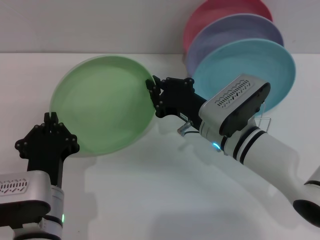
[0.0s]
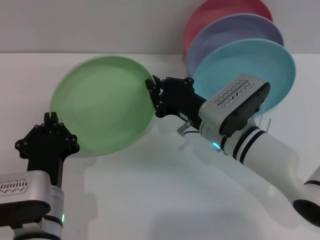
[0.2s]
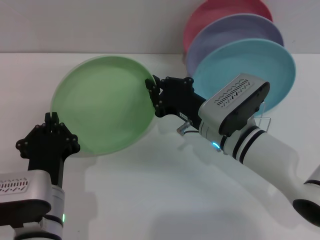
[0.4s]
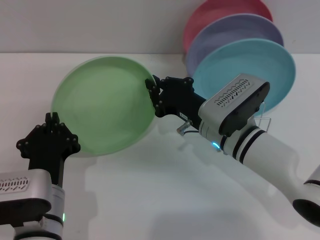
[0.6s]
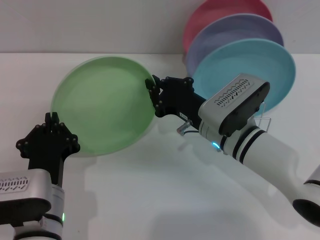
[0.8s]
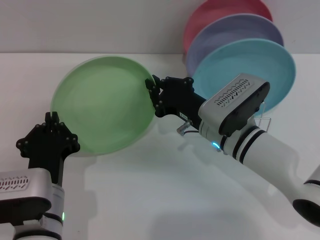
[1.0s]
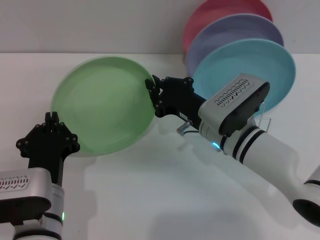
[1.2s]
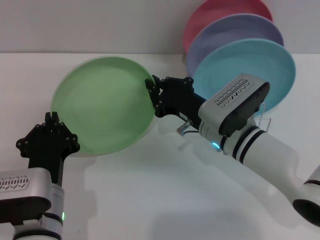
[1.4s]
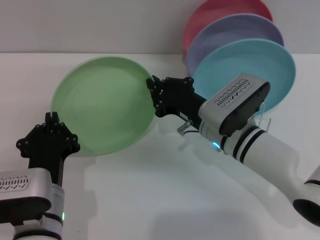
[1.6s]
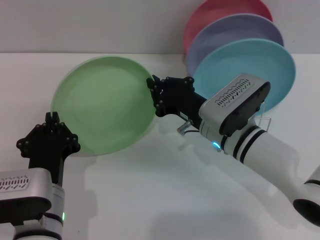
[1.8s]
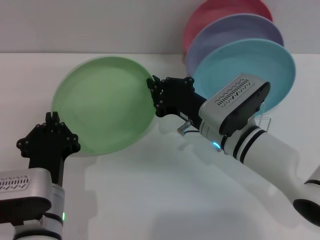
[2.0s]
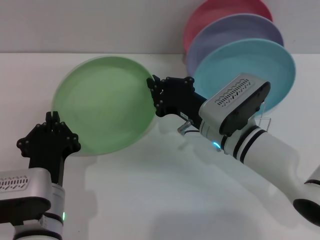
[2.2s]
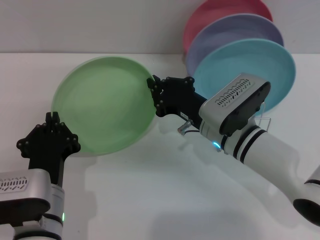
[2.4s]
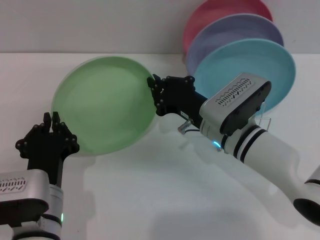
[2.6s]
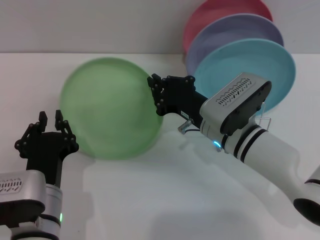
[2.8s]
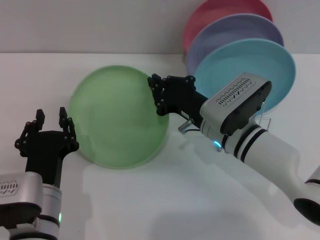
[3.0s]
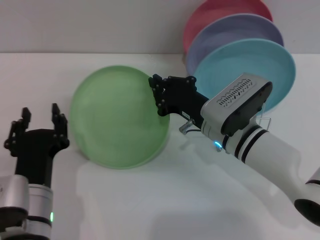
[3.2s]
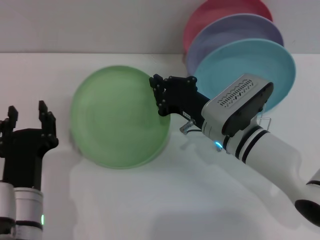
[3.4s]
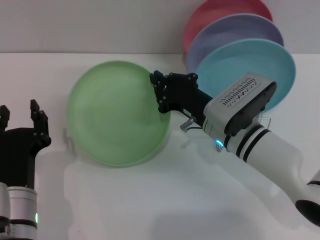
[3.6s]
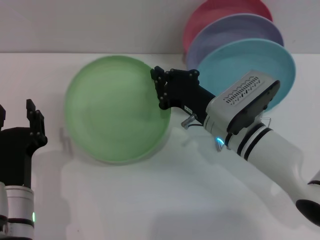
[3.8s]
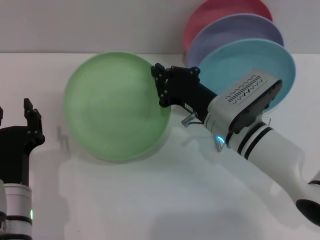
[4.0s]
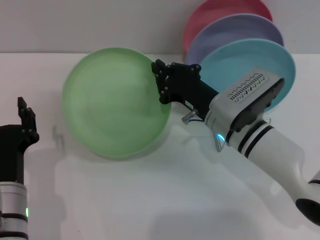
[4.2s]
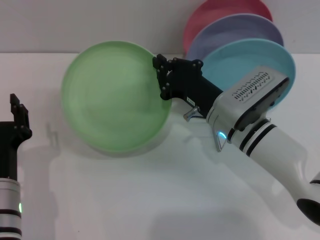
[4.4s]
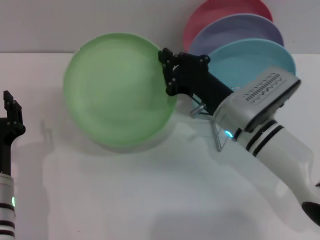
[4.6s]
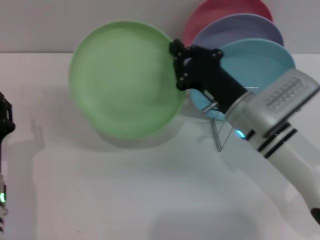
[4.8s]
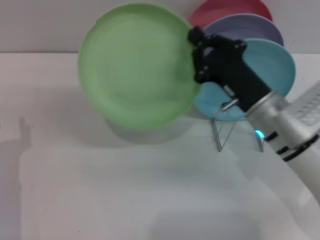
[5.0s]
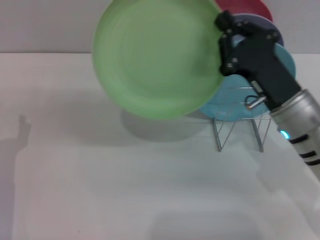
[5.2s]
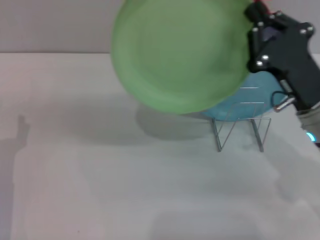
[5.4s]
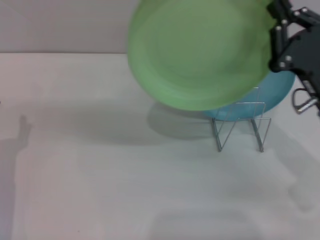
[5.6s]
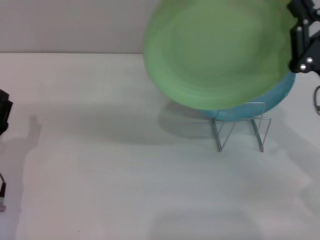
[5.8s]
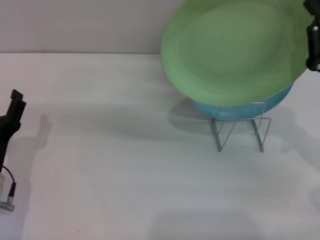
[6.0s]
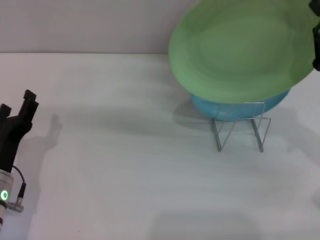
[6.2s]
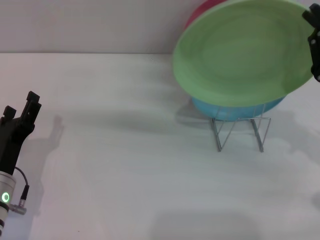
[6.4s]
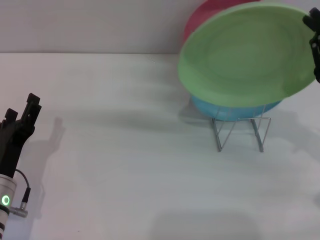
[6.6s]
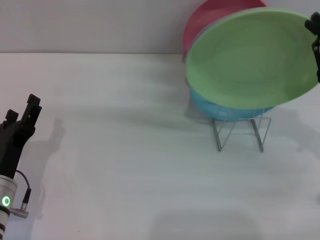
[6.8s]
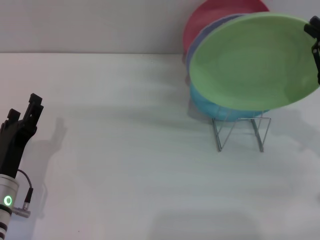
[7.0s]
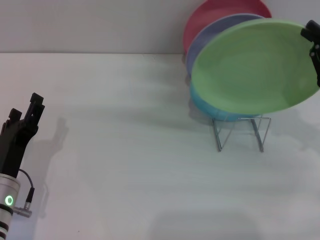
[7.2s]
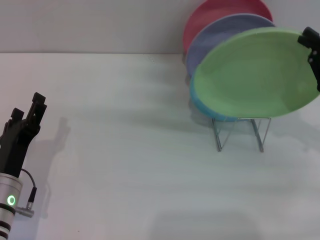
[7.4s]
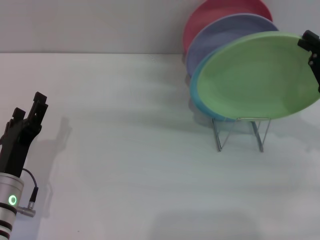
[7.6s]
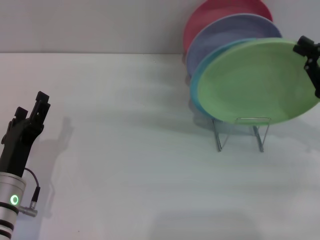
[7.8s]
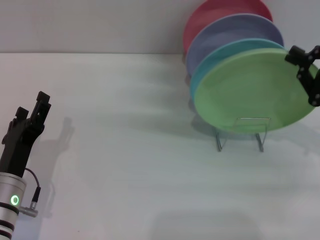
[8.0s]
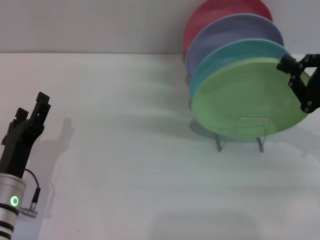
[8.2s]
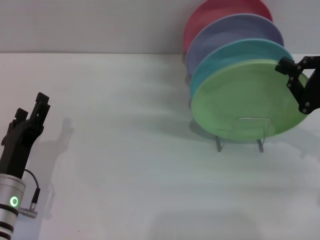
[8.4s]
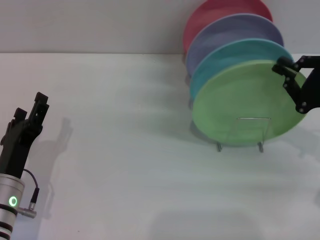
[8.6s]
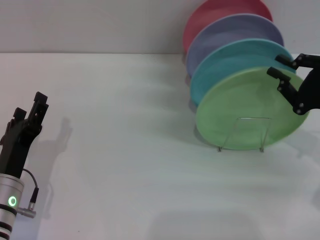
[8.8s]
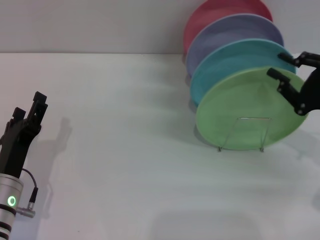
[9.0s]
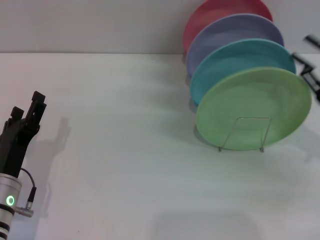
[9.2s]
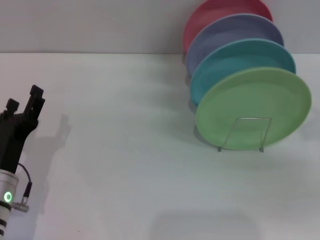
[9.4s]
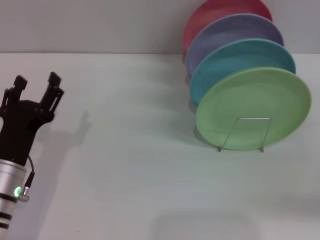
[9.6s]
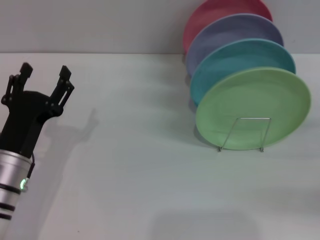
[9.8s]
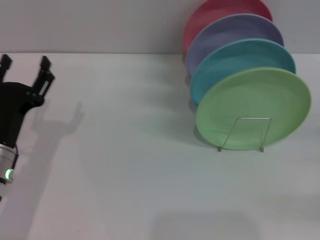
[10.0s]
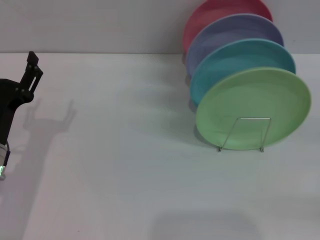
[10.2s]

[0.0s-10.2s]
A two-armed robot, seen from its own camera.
Task of the whole recording: Grip the plate with one hand, pass it to the other, then set it on the shelf.
Step, 0.0s to 3.2s: Pass the plate from the left gripper to the right gripper.
Step, 3.6s to 9.0s: Place the plate on the shelf with the right gripper.
0.0s to 3.0s: Both grippers stay put.
3.0s to 4.4s: The left gripper opens.
4.4s to 5.8s: The left gripper goes some 5 cm to the left. Meanwhile the right gripper heads to the right, covering roughly 15 cm.
5.8s to 7.2s: The right gripper goes about 5 cm to the right.
7.2s to 8.8s: The grippers stay close to where they were, moving slightly.
8.8s to 10.2s: The left gripper changes place by roughly 5 cm. The right gripper moves to the right and backward, roughly 10 cm, and opens its fingers.

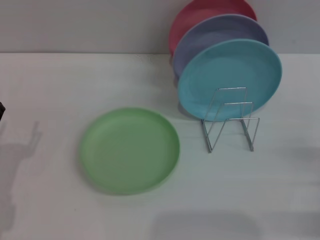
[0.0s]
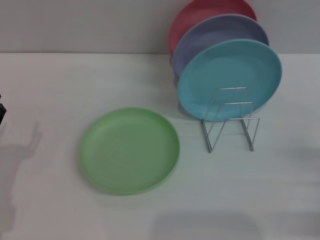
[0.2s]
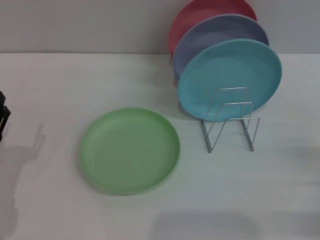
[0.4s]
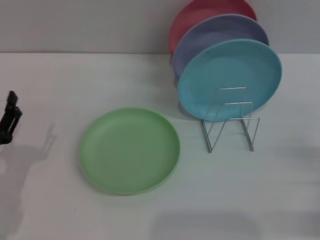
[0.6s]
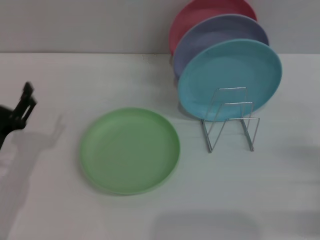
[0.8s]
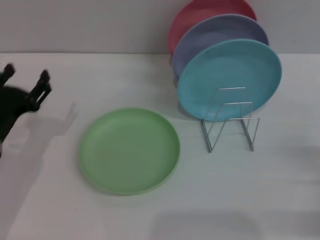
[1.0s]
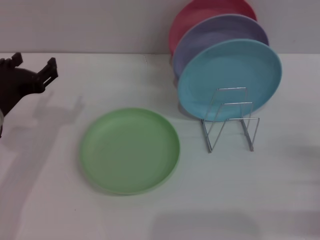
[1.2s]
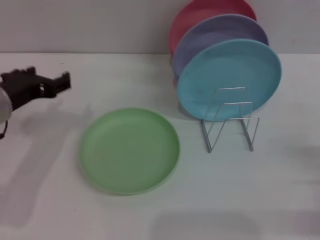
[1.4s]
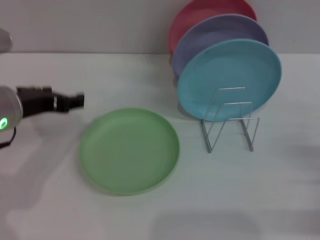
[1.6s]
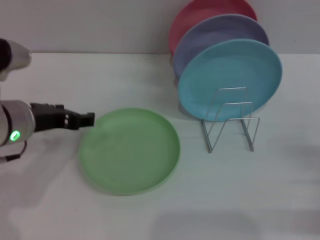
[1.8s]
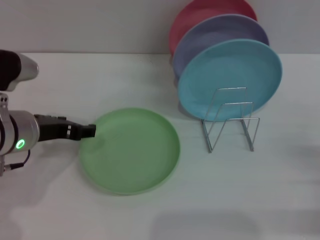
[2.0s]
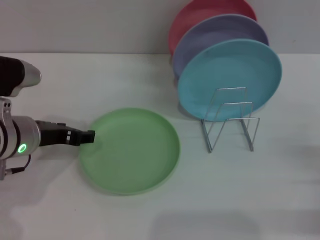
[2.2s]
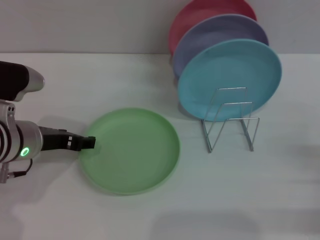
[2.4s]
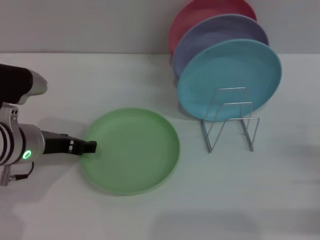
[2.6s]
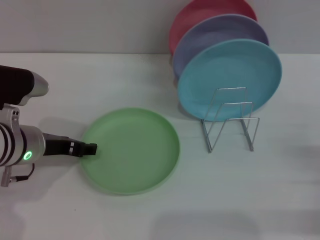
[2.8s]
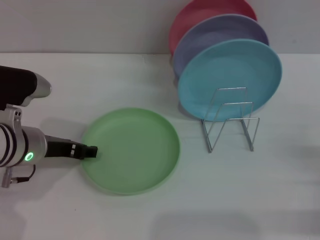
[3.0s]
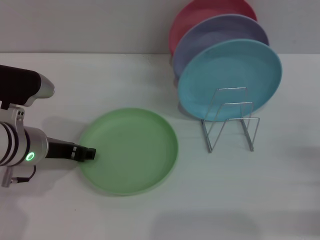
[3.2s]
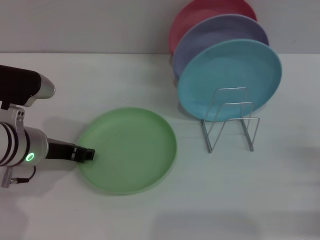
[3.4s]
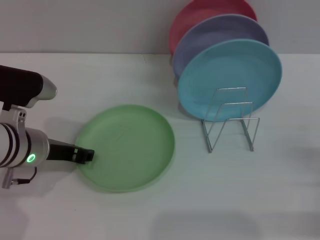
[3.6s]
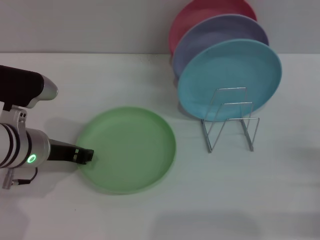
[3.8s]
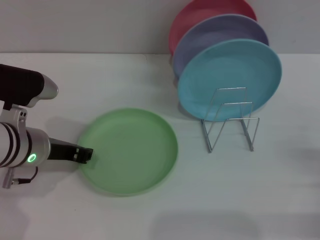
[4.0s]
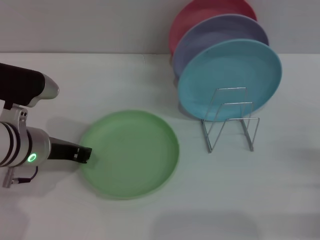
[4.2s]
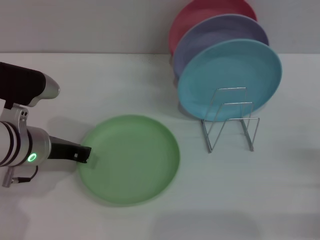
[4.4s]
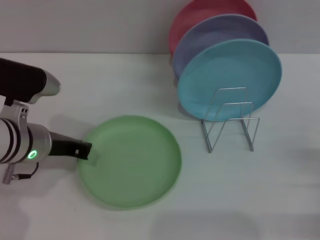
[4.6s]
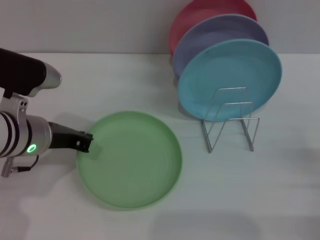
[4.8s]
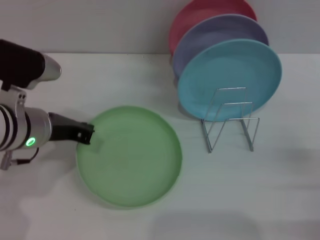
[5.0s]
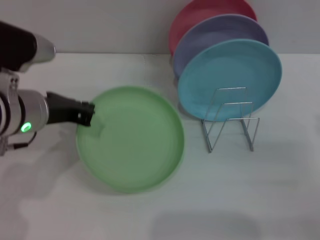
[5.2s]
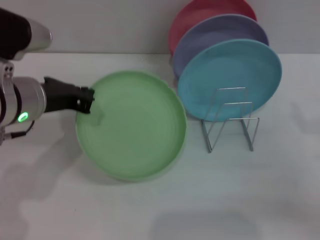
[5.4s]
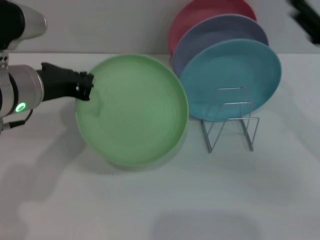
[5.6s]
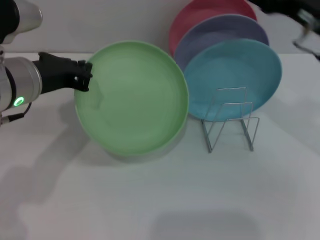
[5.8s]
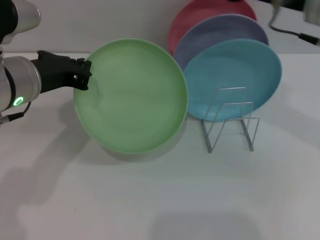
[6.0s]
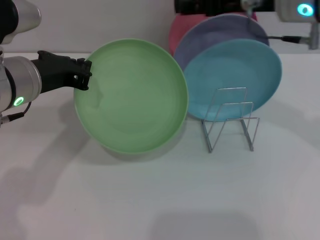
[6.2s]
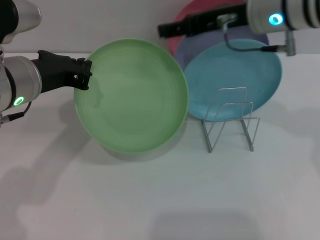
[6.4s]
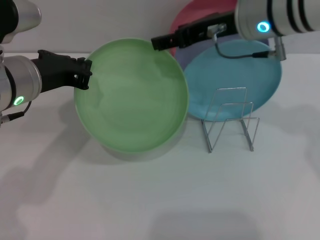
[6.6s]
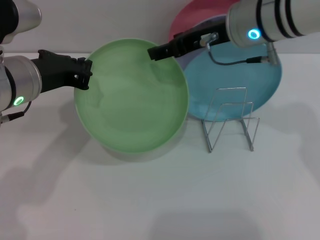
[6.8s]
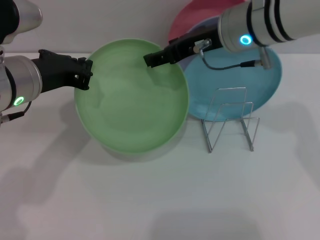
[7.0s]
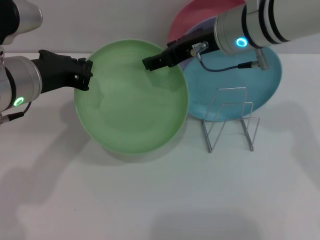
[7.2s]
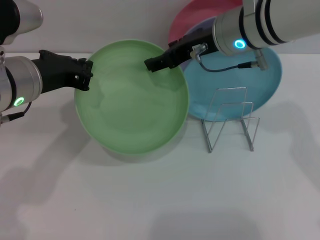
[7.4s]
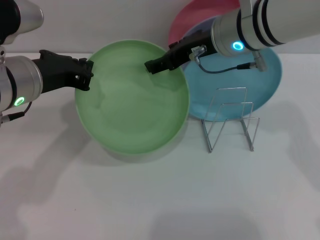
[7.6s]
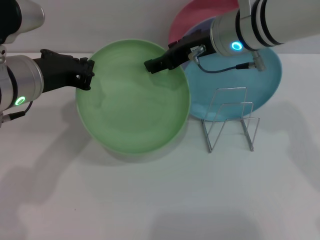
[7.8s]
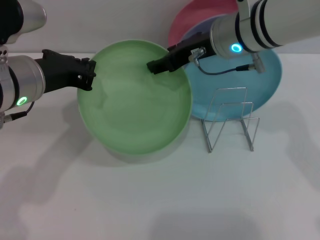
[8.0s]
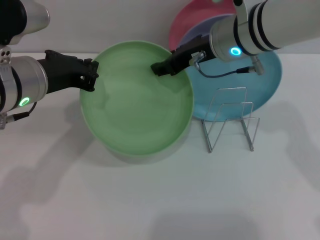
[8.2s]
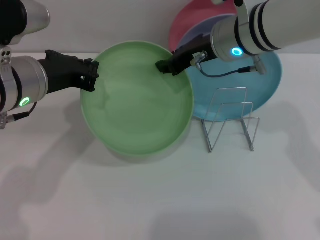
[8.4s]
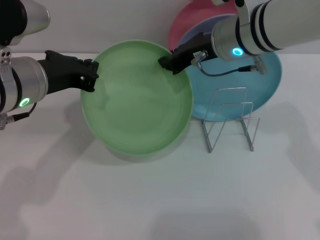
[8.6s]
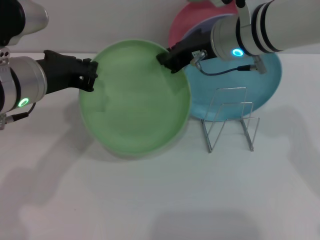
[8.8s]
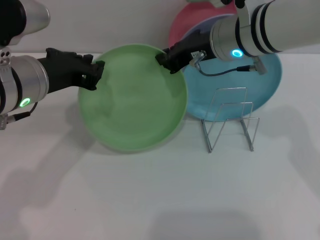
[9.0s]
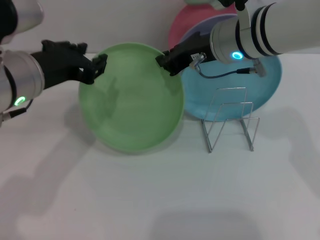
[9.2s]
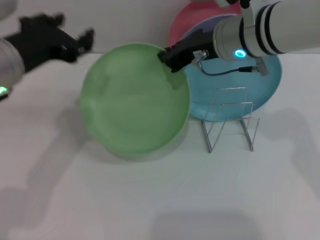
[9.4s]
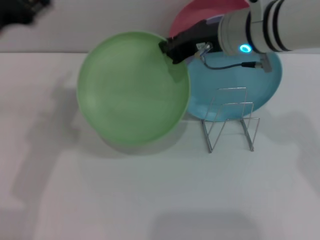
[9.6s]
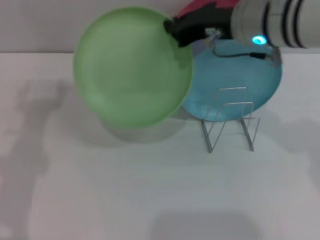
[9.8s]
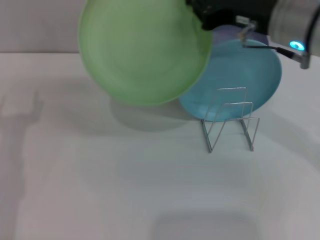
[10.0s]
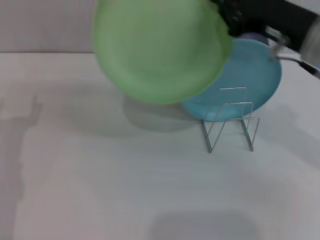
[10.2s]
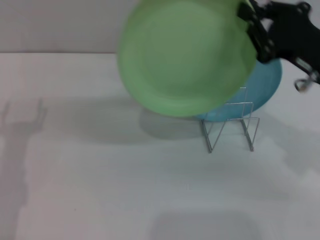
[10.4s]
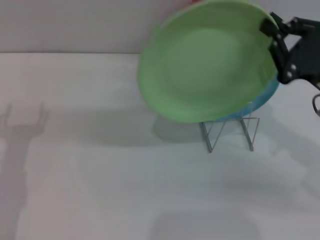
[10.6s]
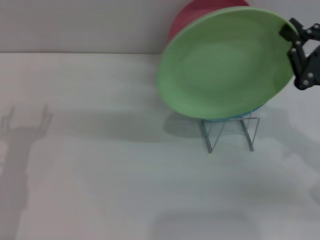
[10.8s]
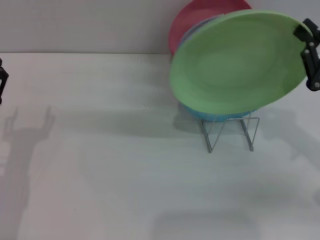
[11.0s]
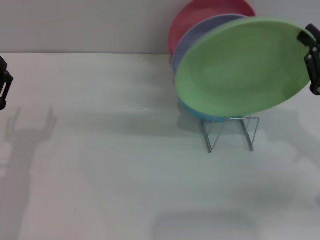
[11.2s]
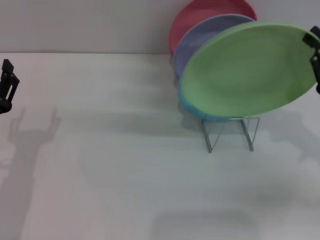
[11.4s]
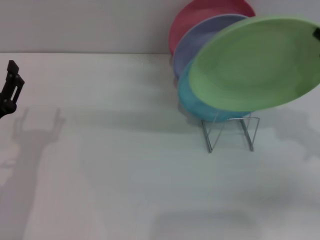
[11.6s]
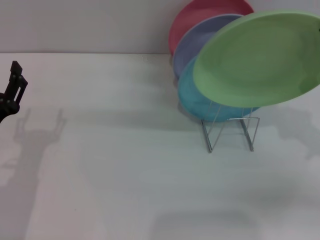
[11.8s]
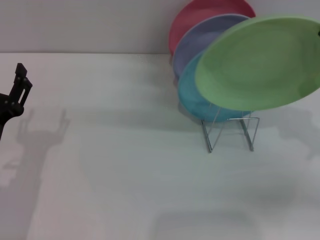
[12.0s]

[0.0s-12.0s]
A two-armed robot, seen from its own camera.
Task of the whole recording: Grip the plate with one hand, pass it to the other, then set it on the shelf.
Step, 0.0s to 5.8s: Pick up the plate with the left gripper.
Step, 6.0s to 9.6s: Pass the plate from the left gripper to the right gripper.
0.0s to 1.6s: The left gripper heads upward, forward and to the right, covering some 20 cm.
1.6s to 3.0s: The left gripper shifts roughly 5 cm downward.
3.0s to 4.4s: The left gripper closes up.
4.4s to 6.0s: The right gripper travels upward, to the left and forward by some 30 cm; the left gripper shifts roughly 10 cm upward.
6.0s to 7.6s: The right gripper shifts approximately 10 cm to the left.
7.6s to 9.0s: The right gripper closes its fingers.
9.0s to 10.4s: The left gripper travels downward, to the left and backward by about 15 cm, and opens up; the right gripper travels to the right and backward by some 15 cm.
10.4s to 12.0s: The right gripper travels to the right by approximately 10 cm.
